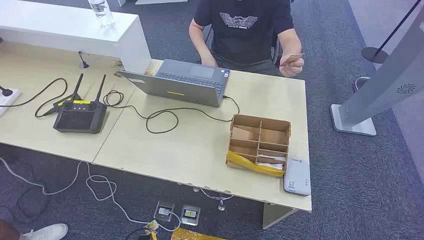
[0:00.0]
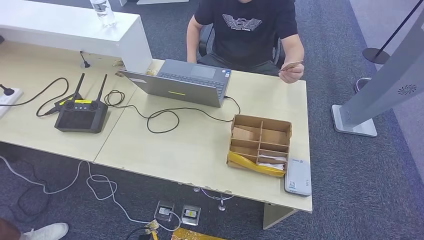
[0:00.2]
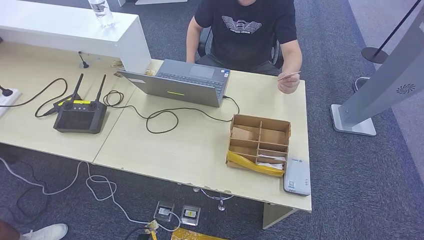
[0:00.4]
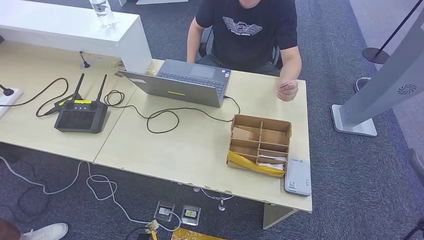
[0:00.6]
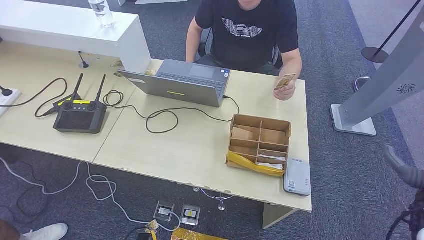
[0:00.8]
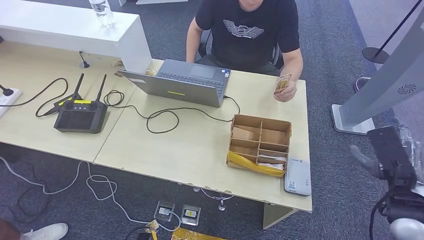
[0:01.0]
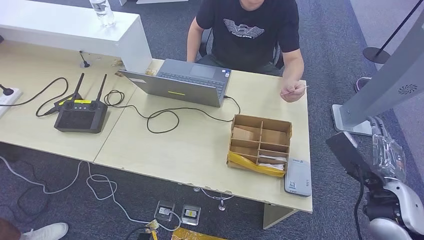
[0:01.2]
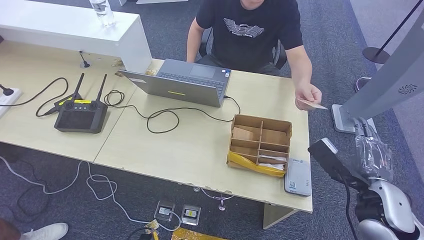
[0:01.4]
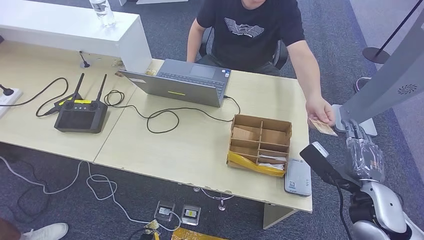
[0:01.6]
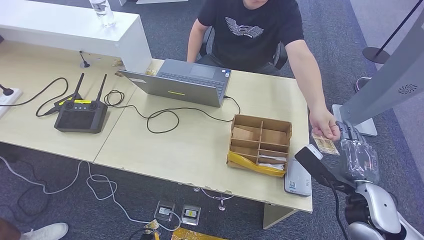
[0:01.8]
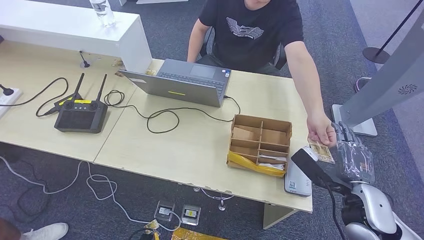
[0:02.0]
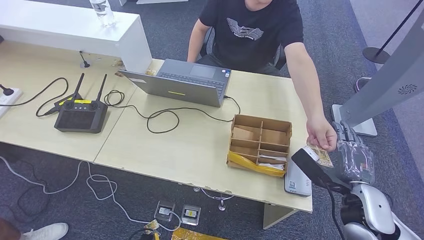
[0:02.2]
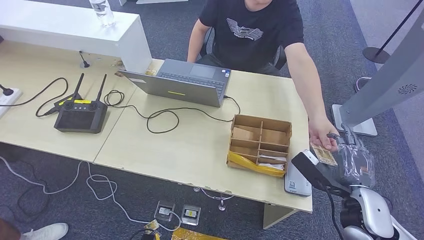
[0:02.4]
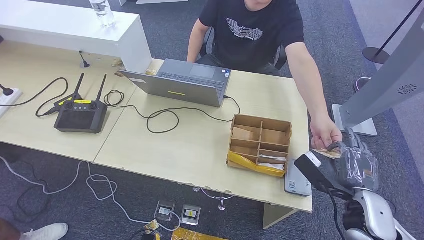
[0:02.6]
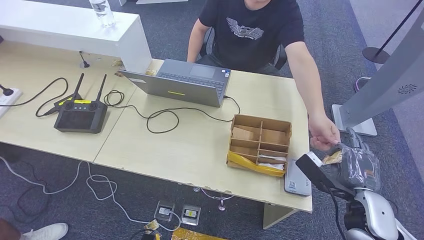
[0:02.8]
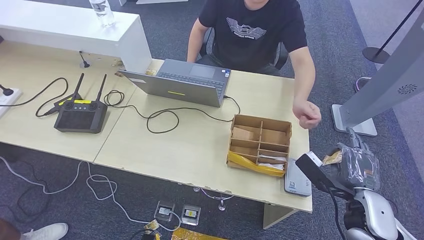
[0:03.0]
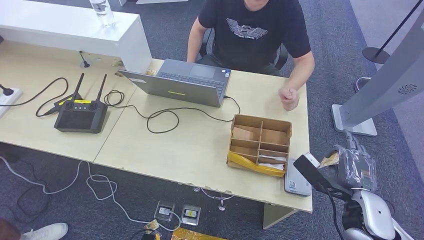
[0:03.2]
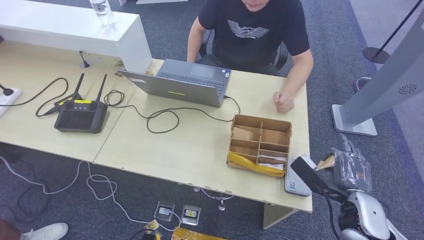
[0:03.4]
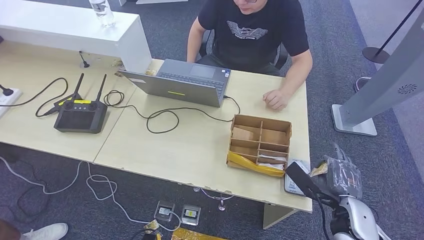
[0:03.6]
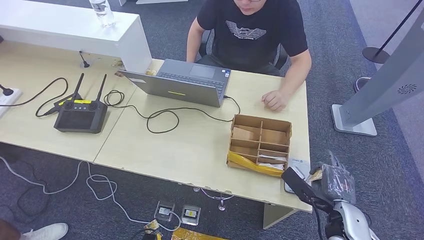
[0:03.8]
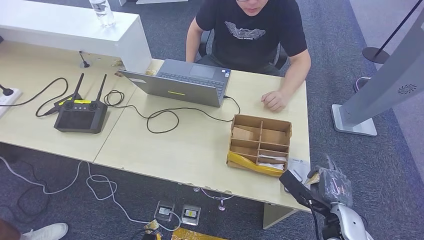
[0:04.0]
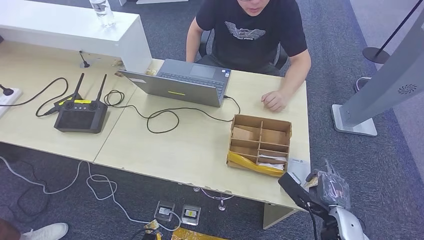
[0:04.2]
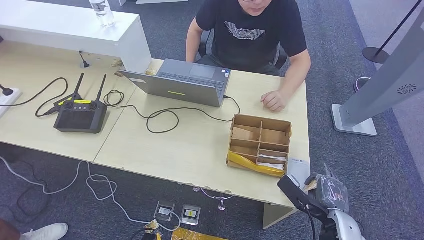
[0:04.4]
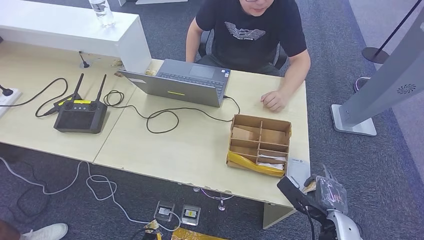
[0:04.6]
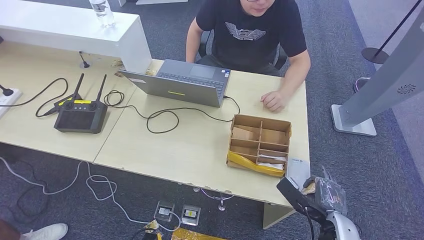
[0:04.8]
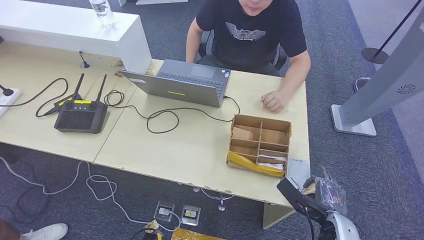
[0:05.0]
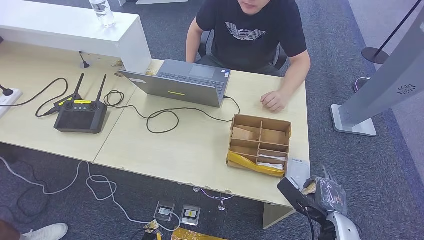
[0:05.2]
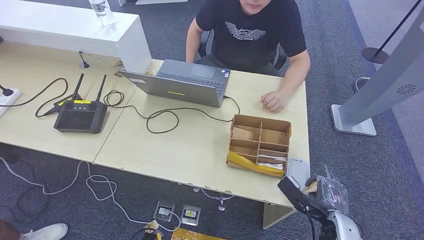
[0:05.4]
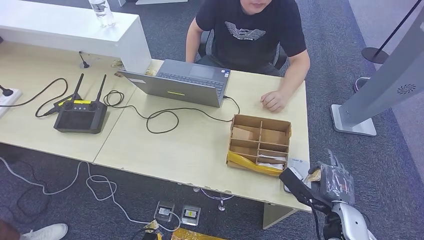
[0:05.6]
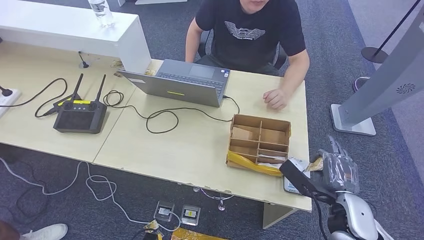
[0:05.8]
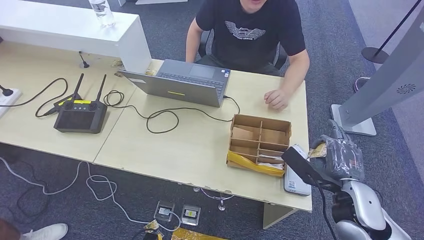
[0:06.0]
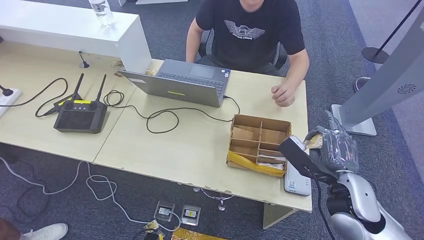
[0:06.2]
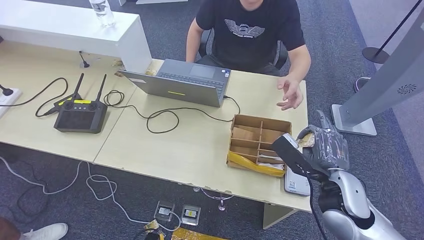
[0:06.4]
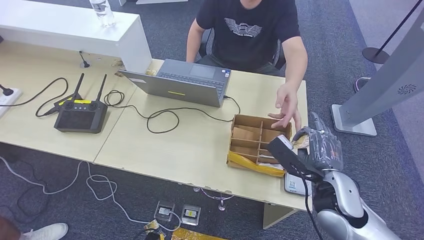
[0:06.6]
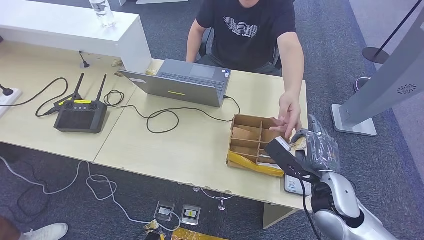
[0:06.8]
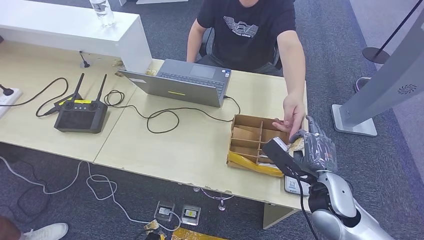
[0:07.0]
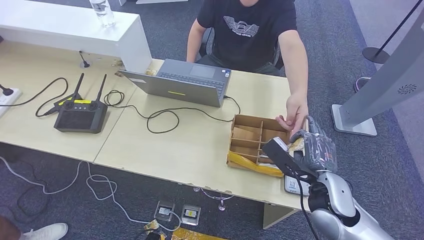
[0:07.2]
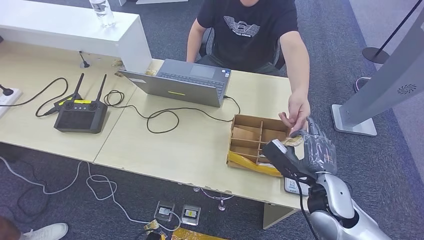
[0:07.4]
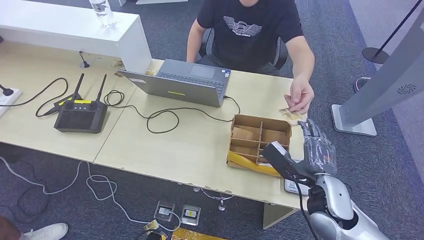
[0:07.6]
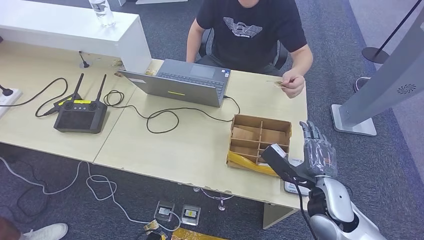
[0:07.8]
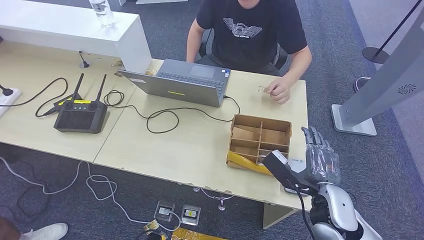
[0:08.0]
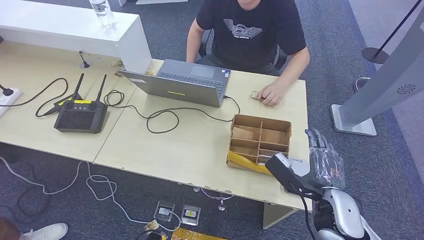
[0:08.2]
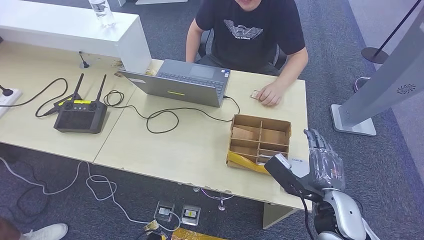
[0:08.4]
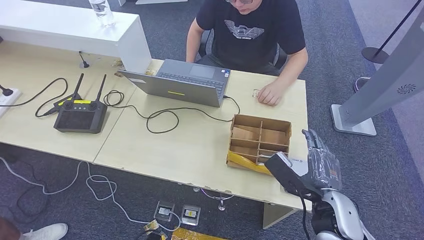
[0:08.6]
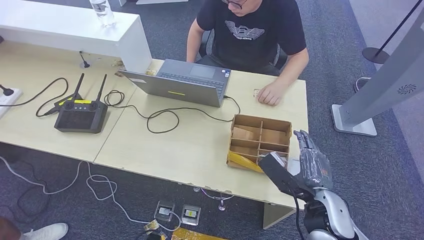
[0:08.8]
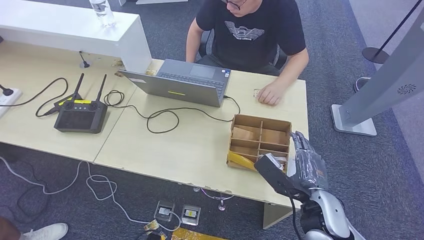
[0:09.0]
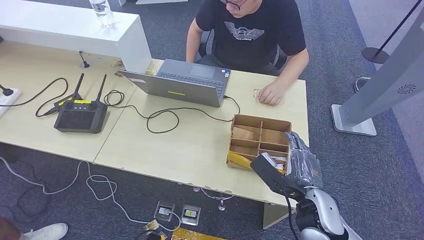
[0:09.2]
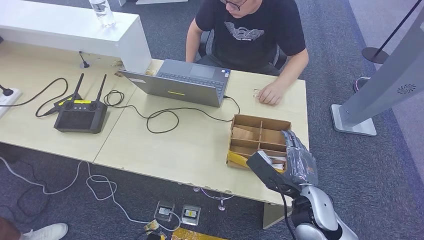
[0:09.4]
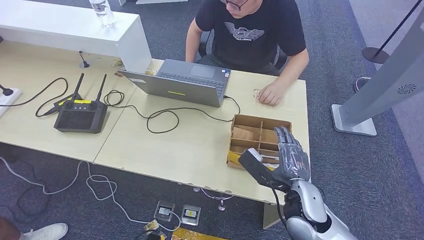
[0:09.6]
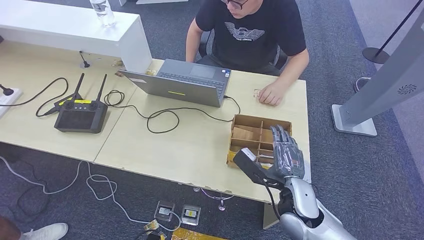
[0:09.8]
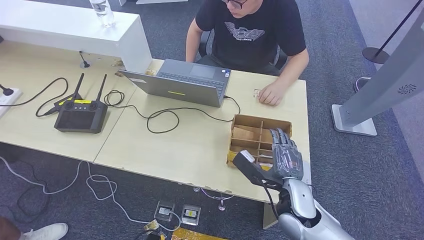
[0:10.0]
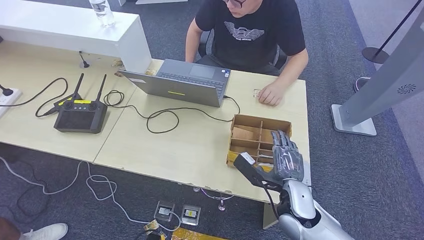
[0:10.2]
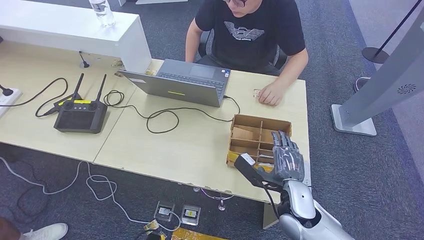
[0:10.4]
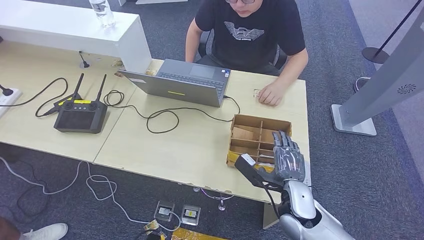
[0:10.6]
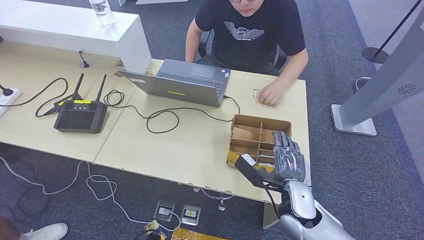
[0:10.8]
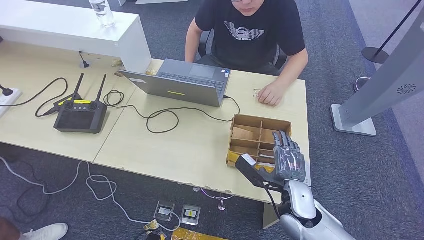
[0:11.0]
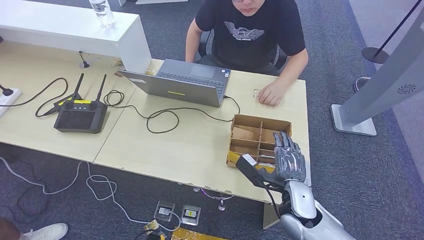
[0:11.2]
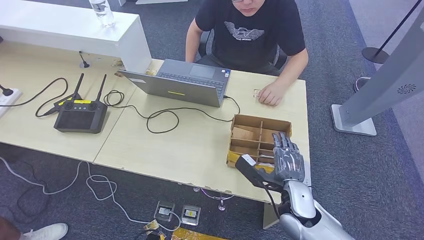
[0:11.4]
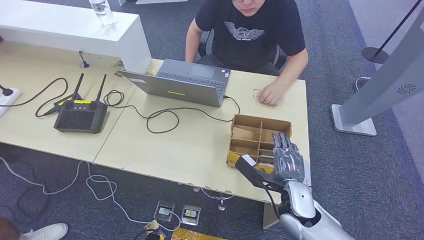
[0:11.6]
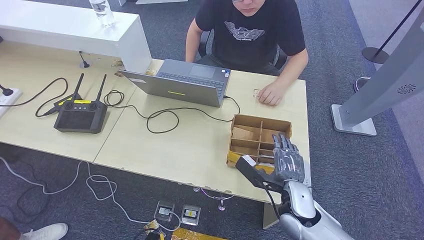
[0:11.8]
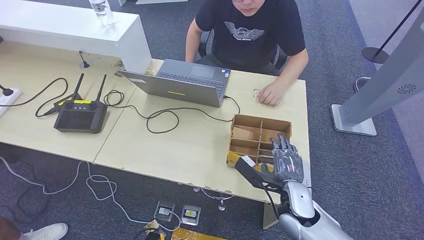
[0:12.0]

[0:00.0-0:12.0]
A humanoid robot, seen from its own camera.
Step, 0:00.0 to 0:02.4: Take the ID card from the person's hand.
Step, 0:03.6 to 0:05.8: Place the ID card on the card reader.
Step, 0:06.4 to 0:09.4: Hand the ID card to the person.
0:01.6 to 0:03.0: The hands move only a little.
0:03.0 to 0:04.4: The right hand is displaced downward by some 10 cm.
0:04.4 to 0:06.0: The right hand is displaced upward by roughly 10 cm.
0:06.0 to 0:07.6: The right hand changes place by about 5 cm.
0:07.6 to 0:09.0: The hands stay close to where they were, moving slightly.
0:09.0 to 0:10.4: The right hand ends up about 5 cm from where it was.
0:10.4 to 0:12.0: Neither hand changes place.

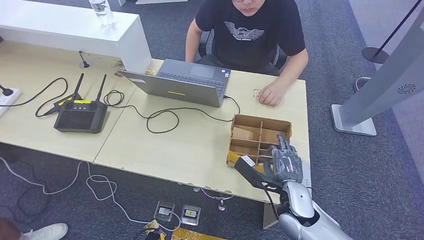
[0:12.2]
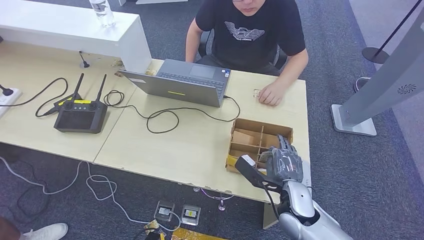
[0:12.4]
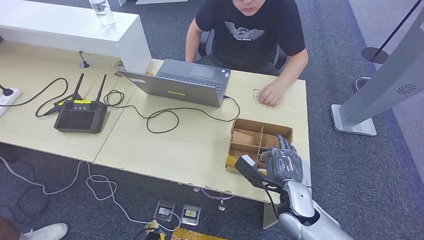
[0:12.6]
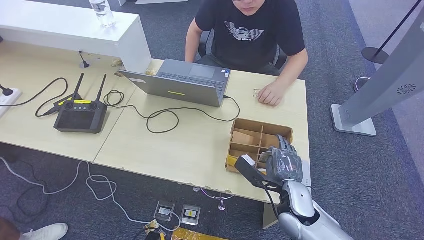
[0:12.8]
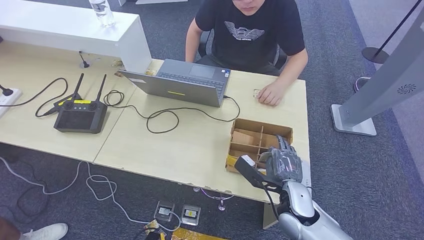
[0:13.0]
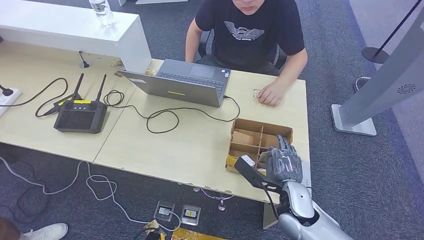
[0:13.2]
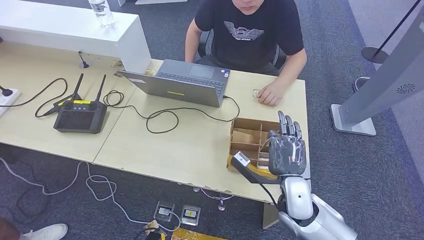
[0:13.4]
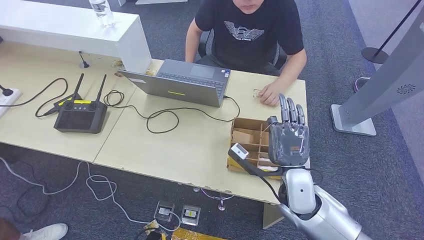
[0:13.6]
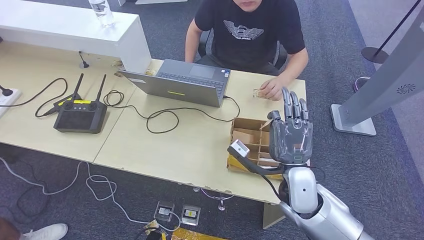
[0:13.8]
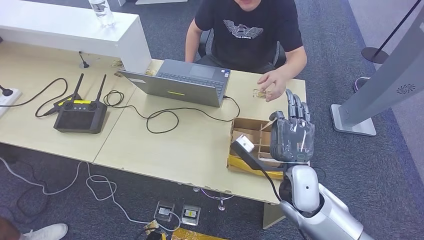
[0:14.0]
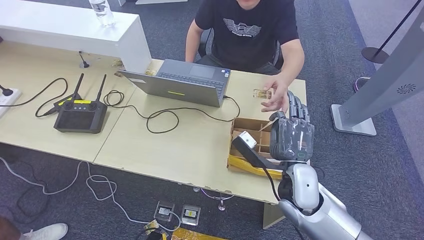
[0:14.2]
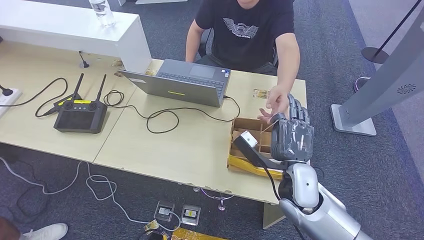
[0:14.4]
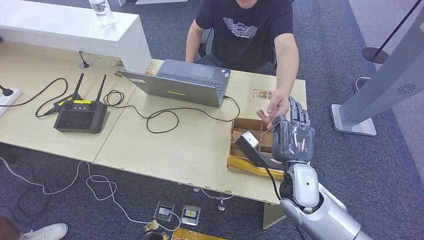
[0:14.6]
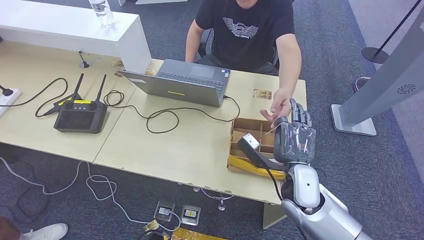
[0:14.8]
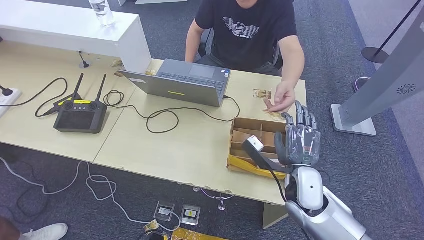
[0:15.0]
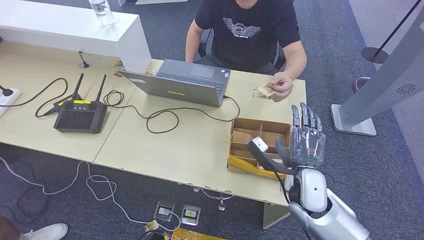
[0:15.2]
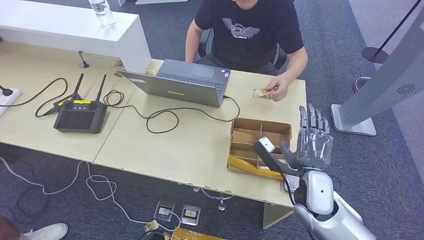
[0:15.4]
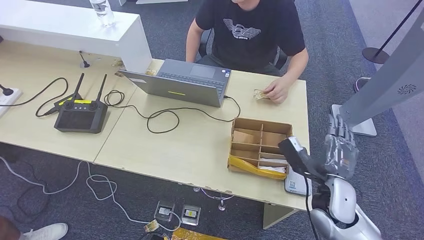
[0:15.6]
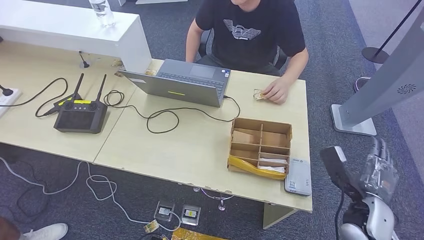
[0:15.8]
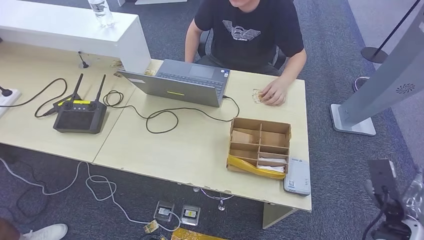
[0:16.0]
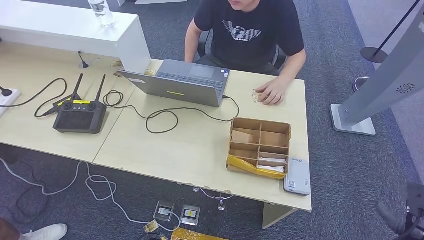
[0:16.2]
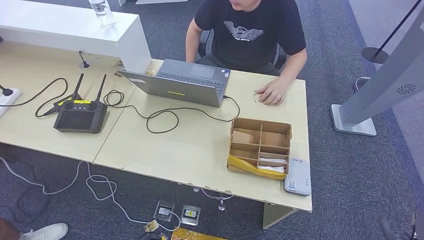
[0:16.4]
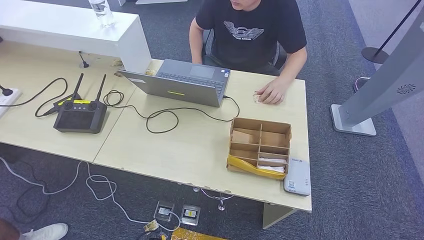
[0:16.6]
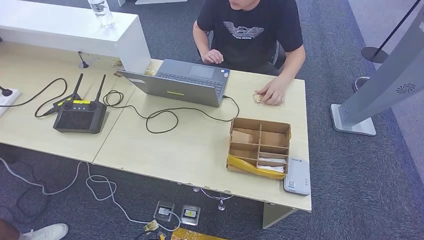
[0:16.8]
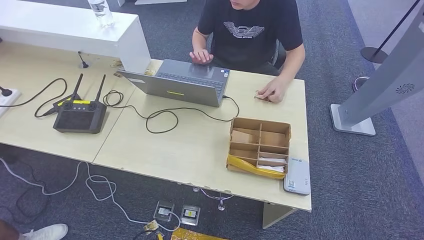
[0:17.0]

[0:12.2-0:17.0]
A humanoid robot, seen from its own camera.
Step, 0:12.2 to 0:14.2: Pick up the room key from the key card box.
Step, 0:14.4 to 0:17.0: Hand the room key to the person.
0:12.2 to 0:13.8: The right hand goes roughly 5 cm upward.
0:13.8 to 0:15.4: The right hand moves some 5 cm.
0:15.4 to 0:17.0: The right hand moves downward, backward and to the right, about 40 cm.
